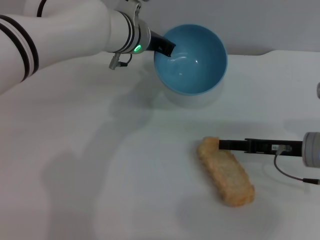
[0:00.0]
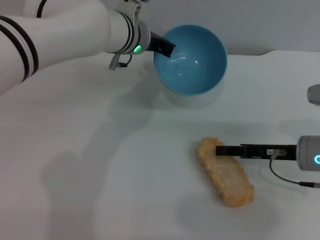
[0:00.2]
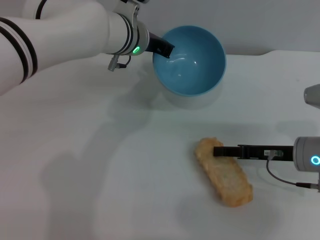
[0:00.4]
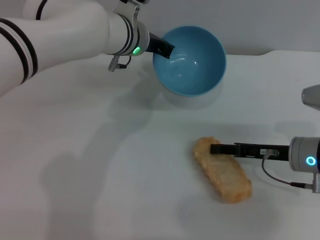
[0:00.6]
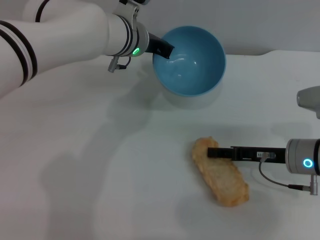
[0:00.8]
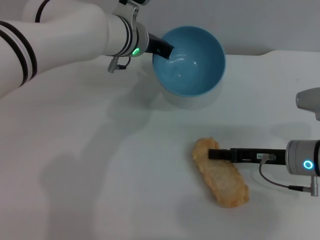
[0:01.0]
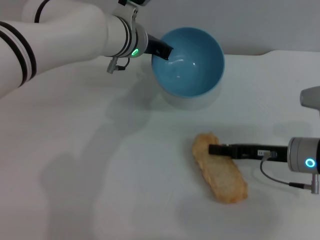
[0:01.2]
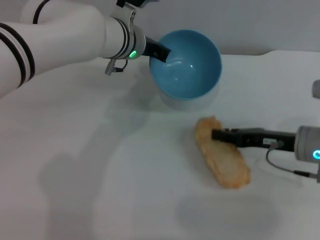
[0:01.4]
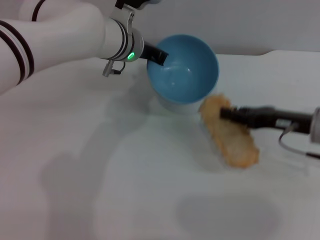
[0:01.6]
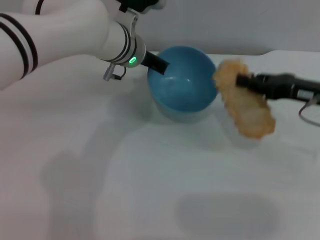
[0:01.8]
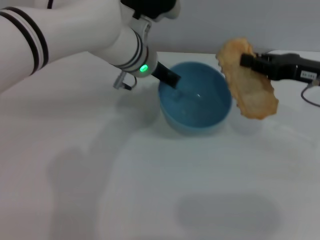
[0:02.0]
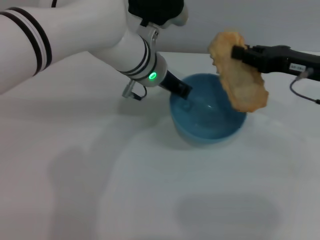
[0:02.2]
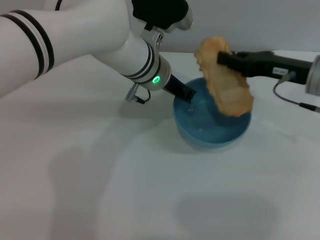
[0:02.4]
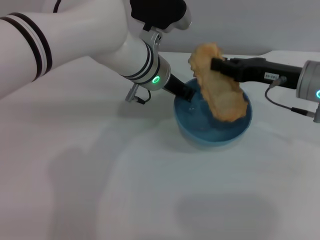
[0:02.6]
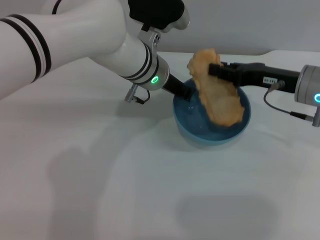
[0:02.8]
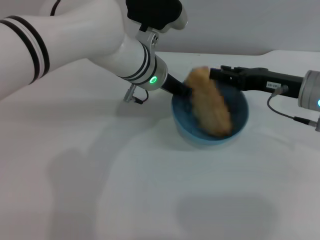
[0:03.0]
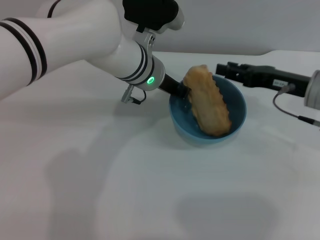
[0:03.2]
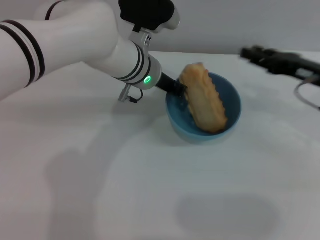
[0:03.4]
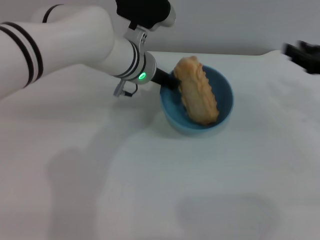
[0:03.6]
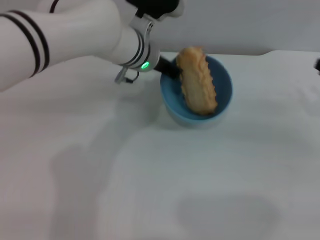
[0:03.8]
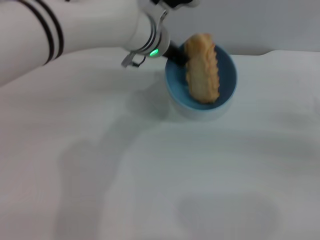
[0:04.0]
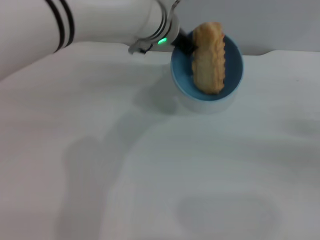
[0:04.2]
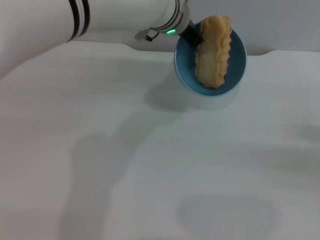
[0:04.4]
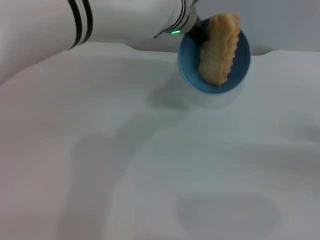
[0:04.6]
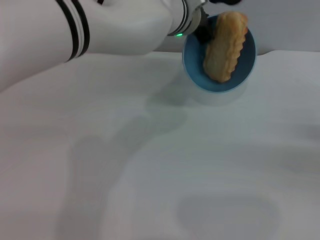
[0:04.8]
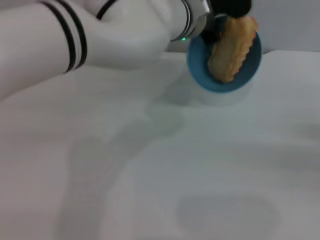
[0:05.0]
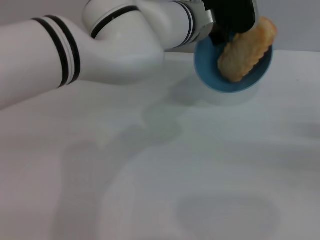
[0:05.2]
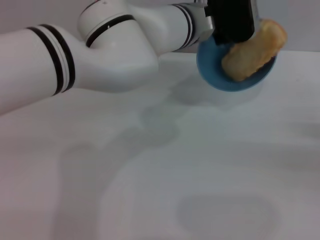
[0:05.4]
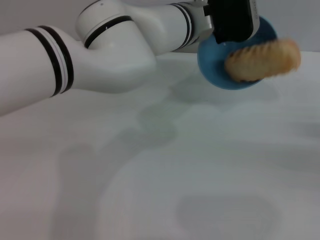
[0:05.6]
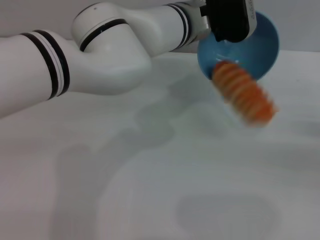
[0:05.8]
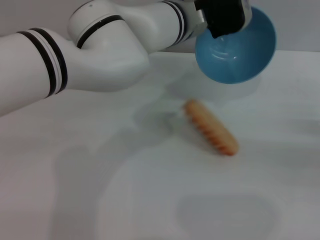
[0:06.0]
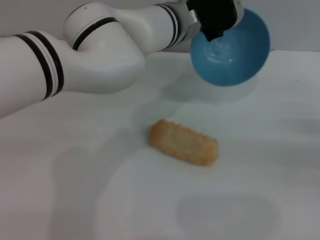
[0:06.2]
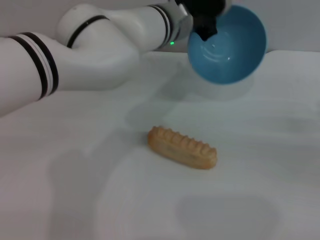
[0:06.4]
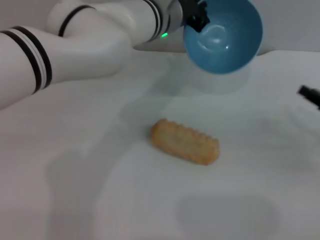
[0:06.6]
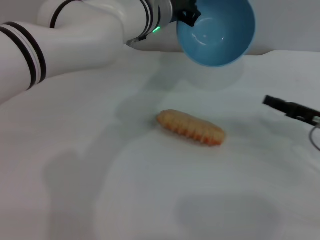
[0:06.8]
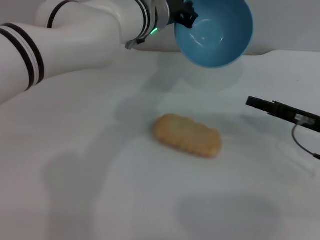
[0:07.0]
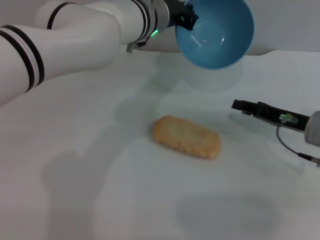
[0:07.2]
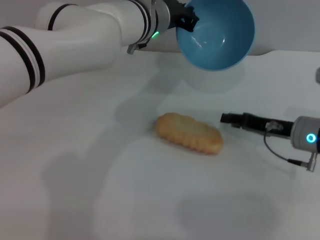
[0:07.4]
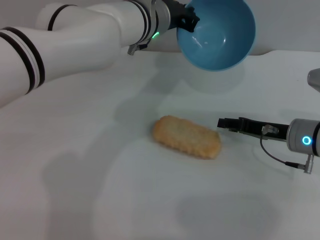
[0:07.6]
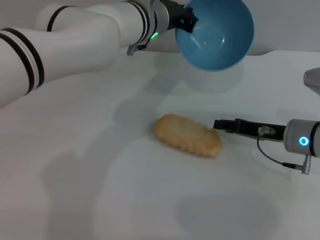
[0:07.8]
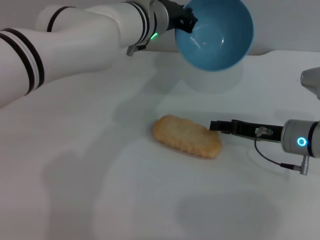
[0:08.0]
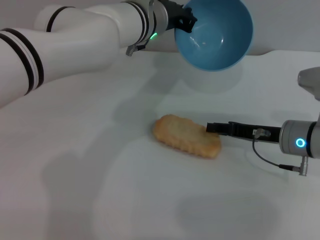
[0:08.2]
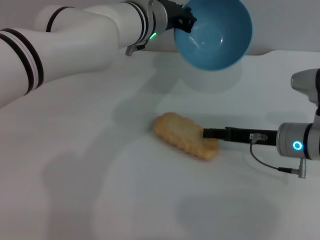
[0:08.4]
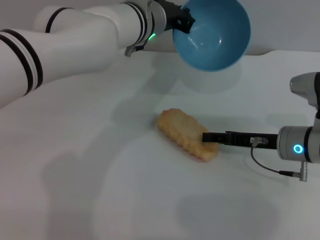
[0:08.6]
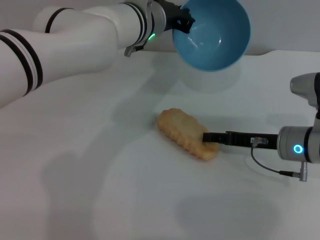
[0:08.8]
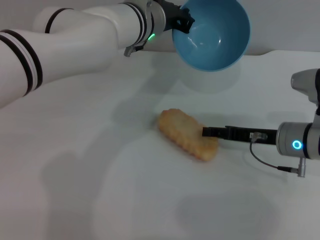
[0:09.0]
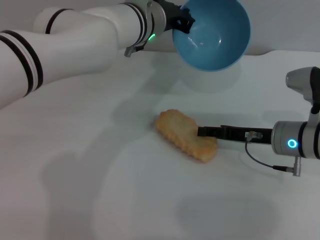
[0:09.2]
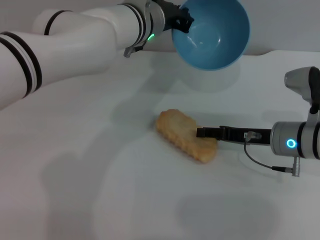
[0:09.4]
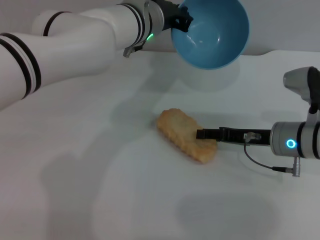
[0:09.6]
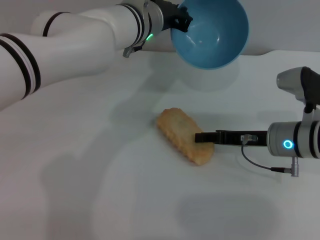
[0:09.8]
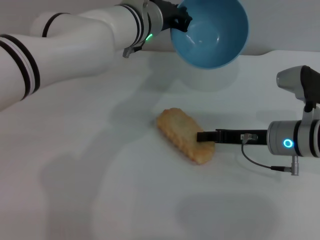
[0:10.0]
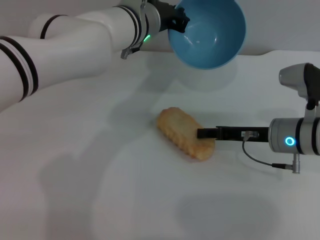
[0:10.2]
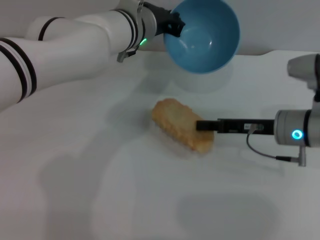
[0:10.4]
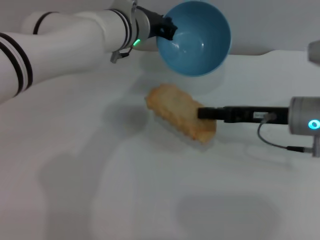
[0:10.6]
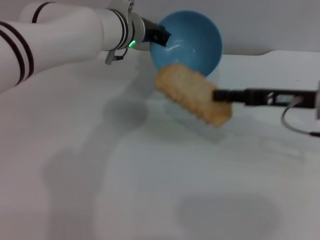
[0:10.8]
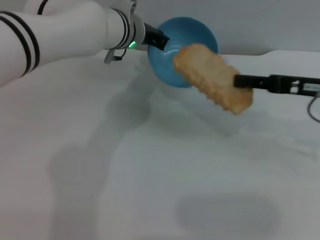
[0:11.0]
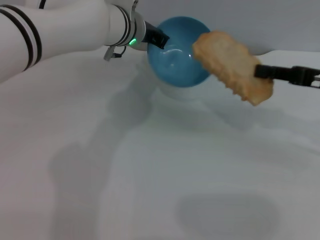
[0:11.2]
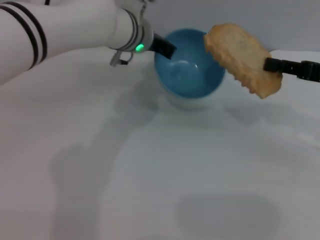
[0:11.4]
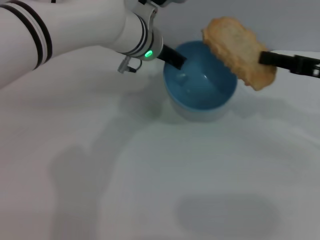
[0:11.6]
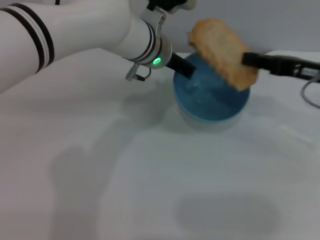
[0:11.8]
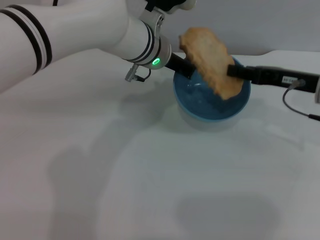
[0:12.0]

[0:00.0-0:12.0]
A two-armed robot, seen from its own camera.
Task of the whole recording: put the bread into the blue bowl and pour it out repeatedly.
Step, 0:01.8 to 0:03.2: Place the bread into the bowl.
Step, 0:03.4 to 0:06.2: Pour the bread out of the bowl.
Step, 0:06.4 to 0:10.6: Pick up the bread with the right gripper.
0:00.0 to 0:01.6: The grippers make only small movements.
0:01.6 to 0:03.0: The right gripper shifts by about 5 cm.
0:03.0 to 0:04.4: The right gripper goes about 20 cm to the right and backward, and opens up. Meanwhile the left gripper is displaced upward by approximately 5 cm.
0:06.0 to 0:07.6: The left gripper shifts by roughly 5 cm. The right gripper moves to the left, roughly 15 cm.
0:07.6 to 0:09.0: There are only small adjustments of the grippers.
0:09.0 to 0:10.4: The right gripper closes its fingers.
0:10.4 to 0:12.0: The right gripper shifts about 5 cm upward.

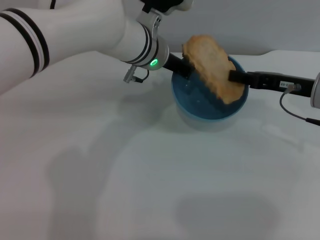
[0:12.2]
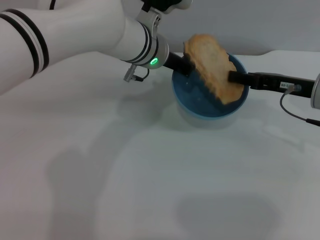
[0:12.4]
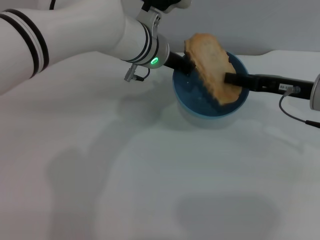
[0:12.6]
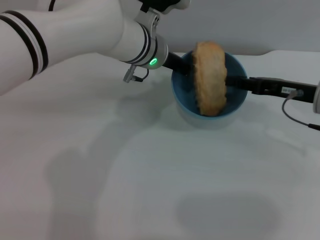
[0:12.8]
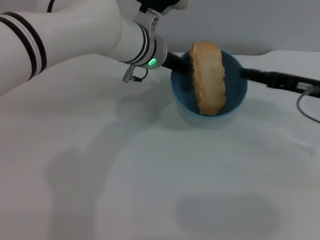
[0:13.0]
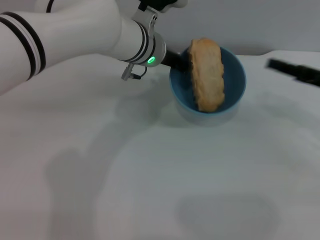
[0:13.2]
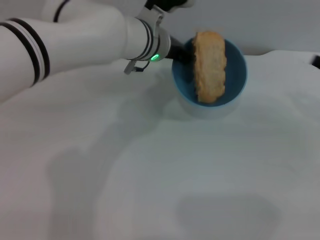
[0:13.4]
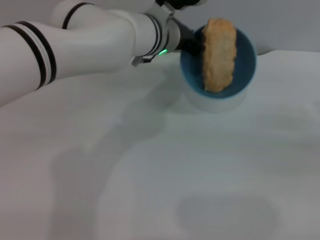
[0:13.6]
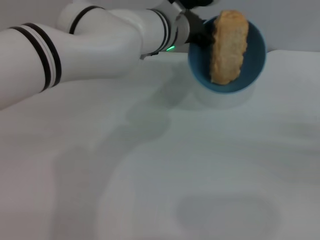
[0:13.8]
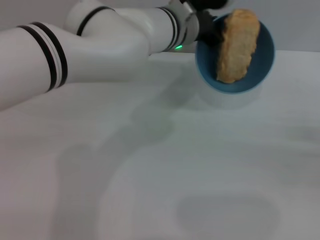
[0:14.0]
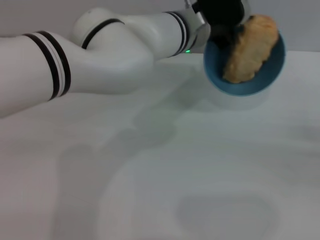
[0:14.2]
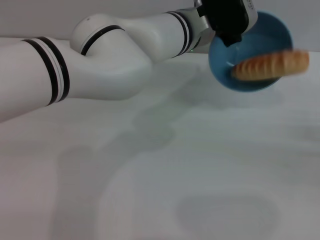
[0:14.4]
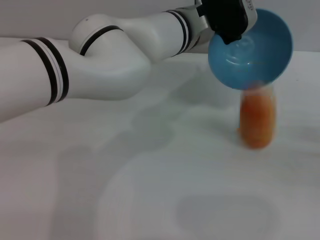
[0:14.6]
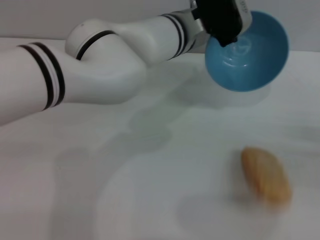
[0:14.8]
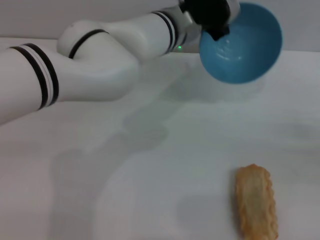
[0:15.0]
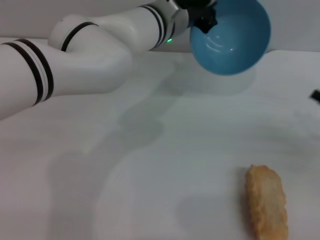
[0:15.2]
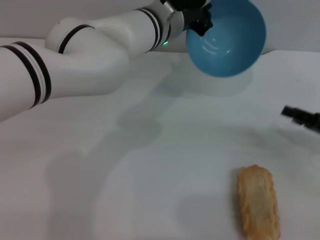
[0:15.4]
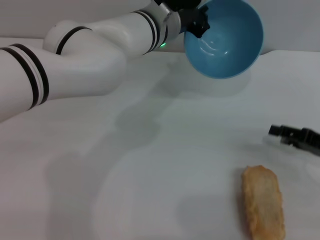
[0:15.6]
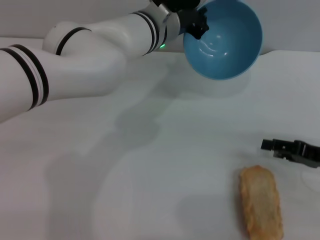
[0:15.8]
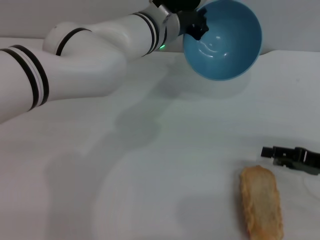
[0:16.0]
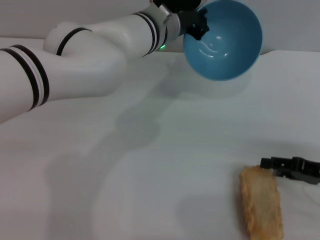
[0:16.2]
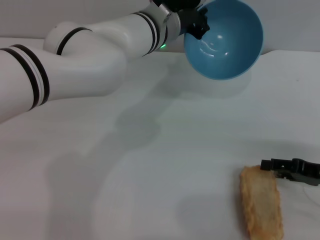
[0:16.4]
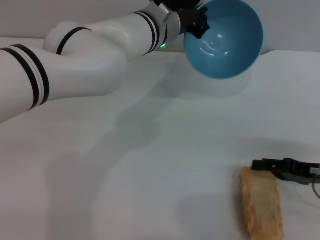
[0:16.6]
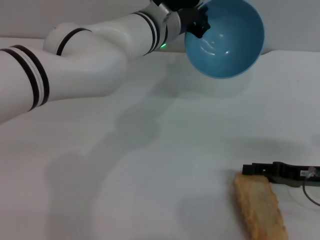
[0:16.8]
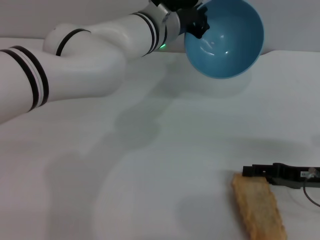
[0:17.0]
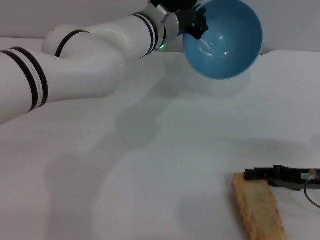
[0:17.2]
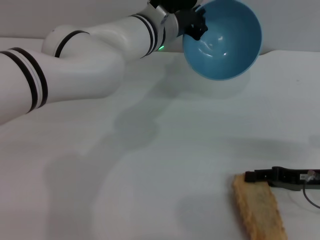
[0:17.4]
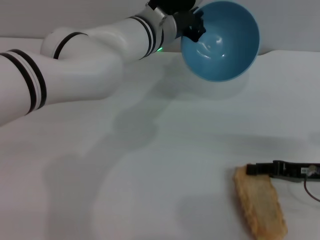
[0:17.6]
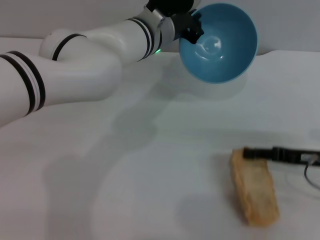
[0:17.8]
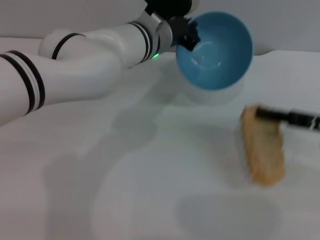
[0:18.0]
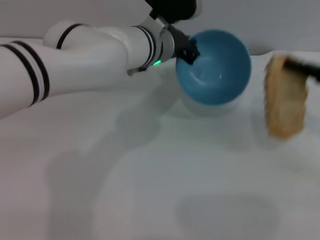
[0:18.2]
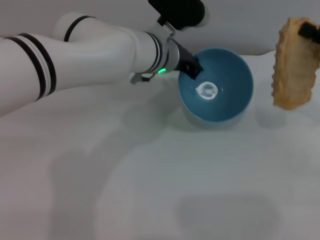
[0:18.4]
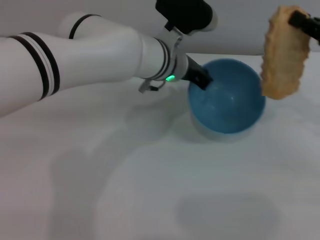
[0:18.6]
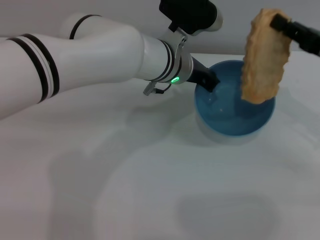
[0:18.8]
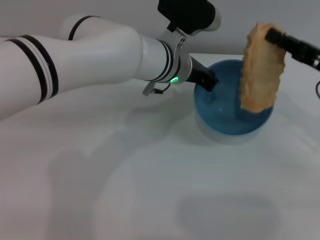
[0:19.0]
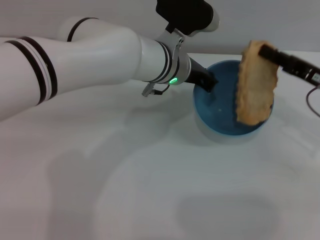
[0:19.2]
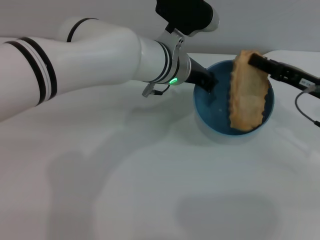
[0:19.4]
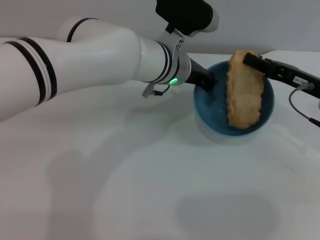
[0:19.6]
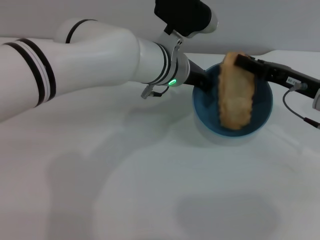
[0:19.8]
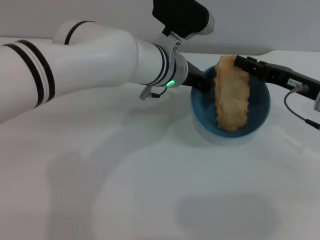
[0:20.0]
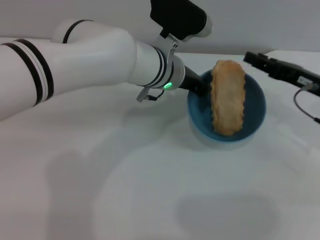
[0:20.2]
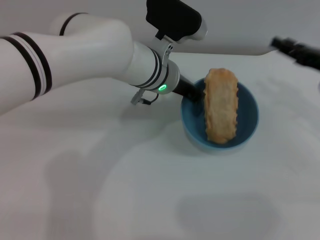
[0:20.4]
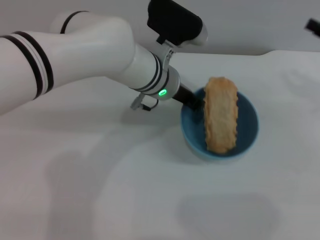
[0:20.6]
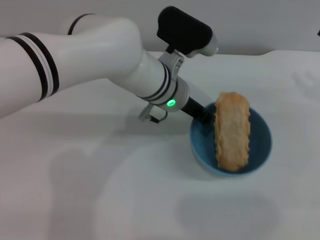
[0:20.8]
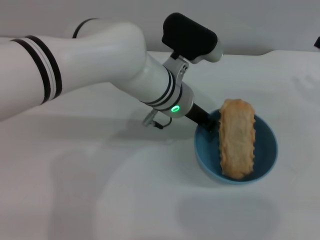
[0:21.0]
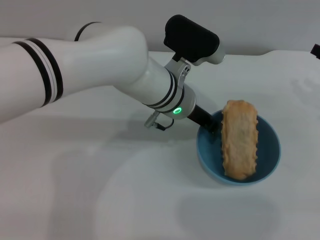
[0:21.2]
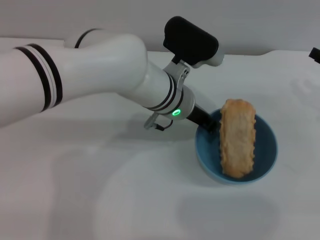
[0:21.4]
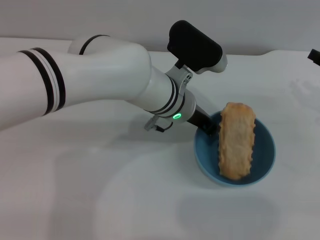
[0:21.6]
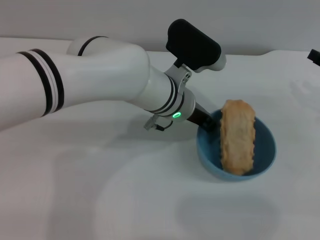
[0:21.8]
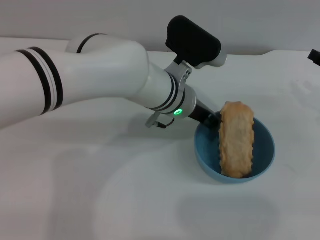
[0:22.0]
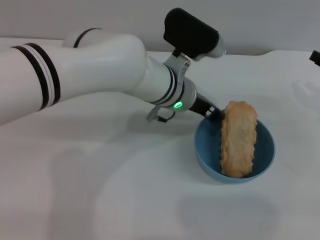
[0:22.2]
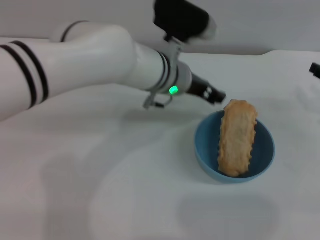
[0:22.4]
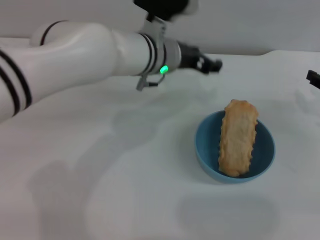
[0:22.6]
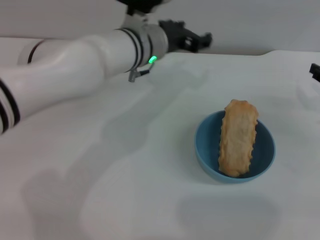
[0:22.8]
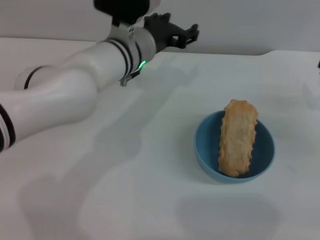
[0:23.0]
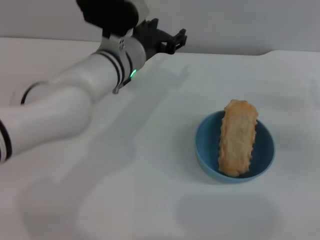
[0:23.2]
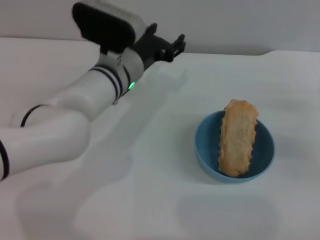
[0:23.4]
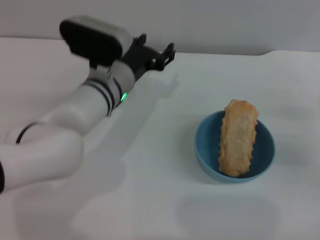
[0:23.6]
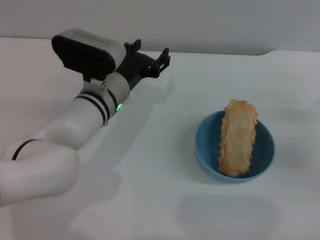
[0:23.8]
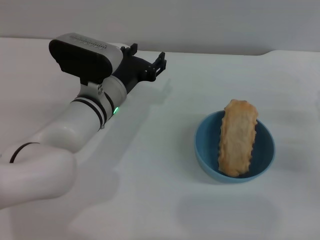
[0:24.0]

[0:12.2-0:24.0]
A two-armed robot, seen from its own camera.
Task of the whole recording: put the bread into the blue bowl and pour it out repeatedly.
Step, 0:13.2 to 0:14.8: Pour the bread out of the bowl.
Step, 0:15.0 to 0:18.2: Pick up the bread with the right gripper.
Step, 0:18.4 to 0:20.2: Place the bread into the bowl.
Step, 0:20.4 to 0:22.4: Place the bowl on the table.
0:12.2 to 0:13.6: The right gripper is displaced to the right and backward by some 15 cm, and opens its fingers.
0:15.2 to 0:16.6: The right gripper shifts by about 5 cm, and opens up.
0:16.6 to 0:18.2: The right gripper goes some 10 cm upward, and closes up.
0:18.2 to 0:19.6: The right gripper moves to the left, approximately 5 cm.
0:19.6 to 0:21.0: The right gripper is displaced to the right by about 10 cm, and opens.
0:21.0 to 0:22.6: The left gripper opens up.
0:22.6 to 0:24.0: The left gripper heads downward, to the left and backward, covering about 10 cm, and opens its fingers; the right gripper is displaced backward by some 5 cm.
